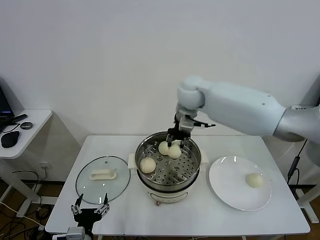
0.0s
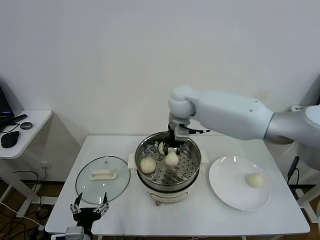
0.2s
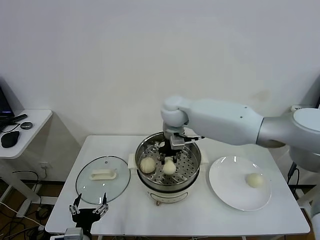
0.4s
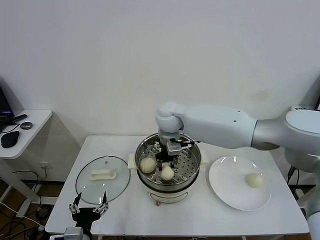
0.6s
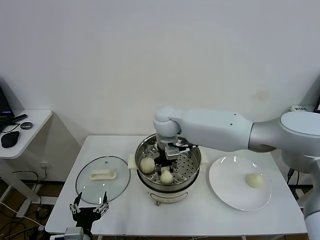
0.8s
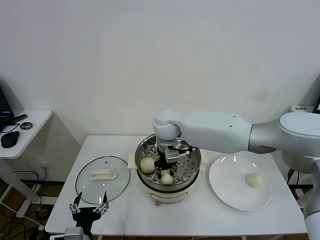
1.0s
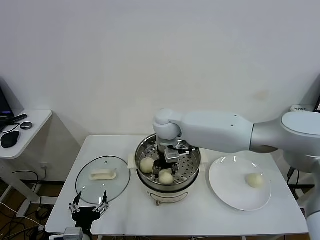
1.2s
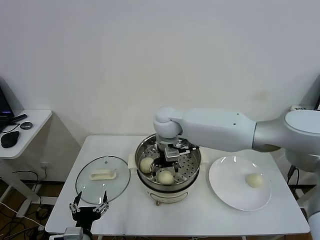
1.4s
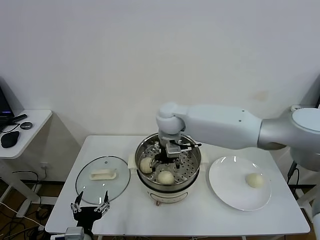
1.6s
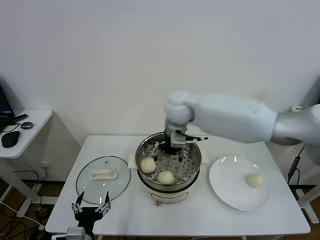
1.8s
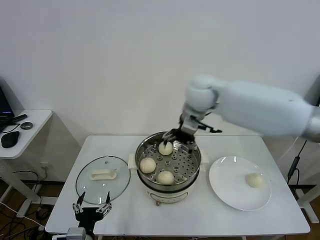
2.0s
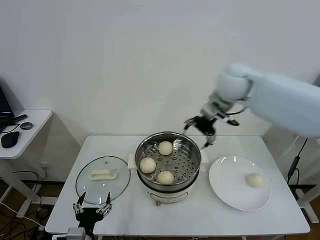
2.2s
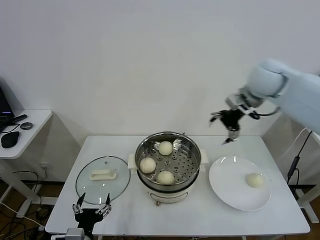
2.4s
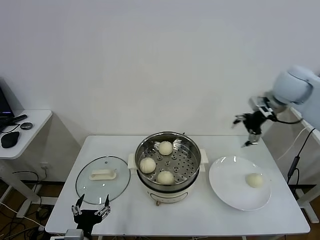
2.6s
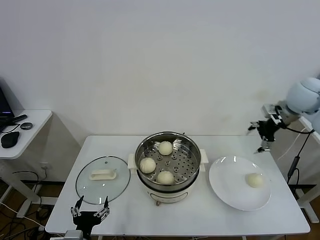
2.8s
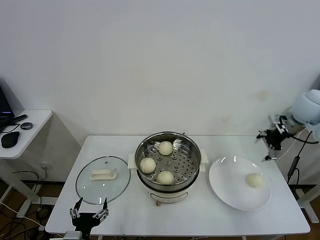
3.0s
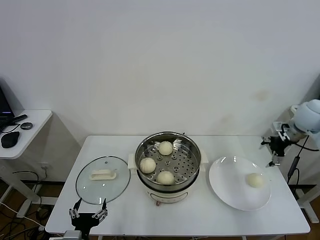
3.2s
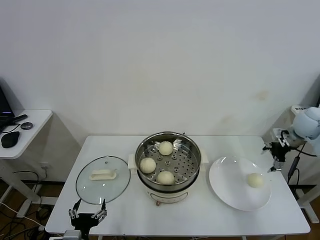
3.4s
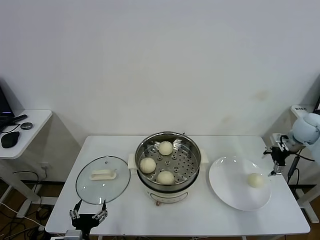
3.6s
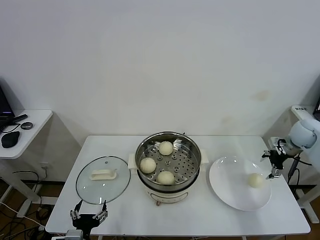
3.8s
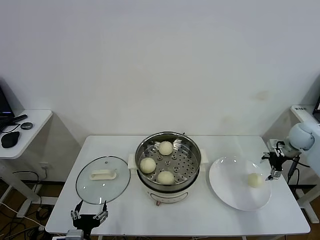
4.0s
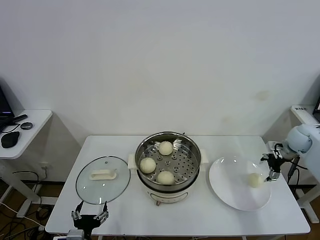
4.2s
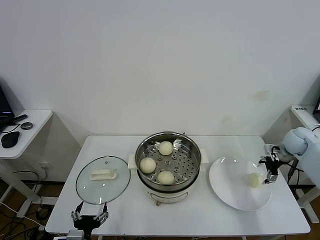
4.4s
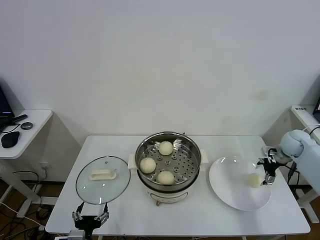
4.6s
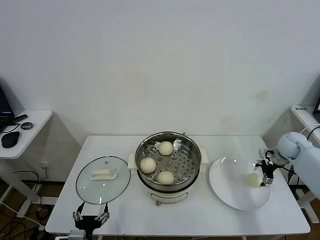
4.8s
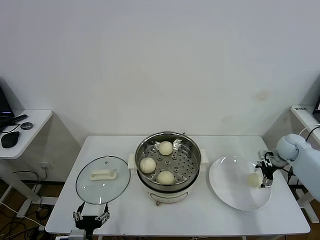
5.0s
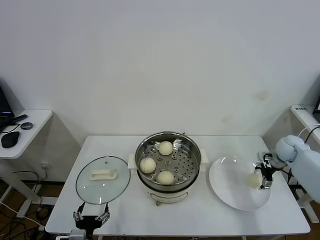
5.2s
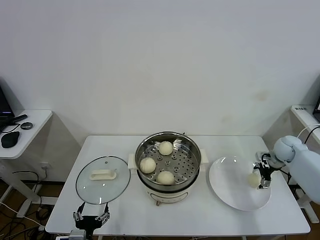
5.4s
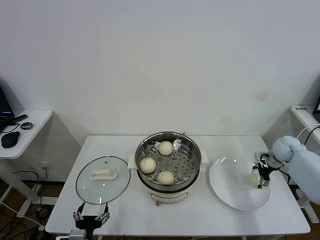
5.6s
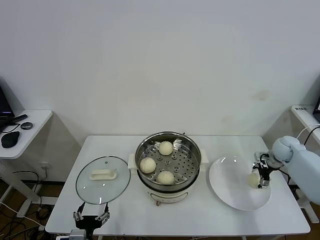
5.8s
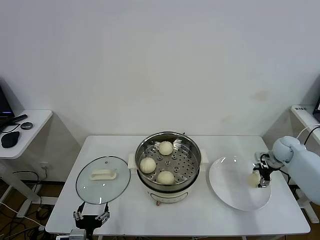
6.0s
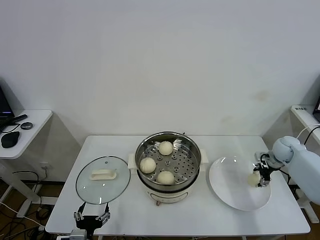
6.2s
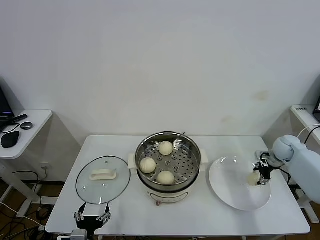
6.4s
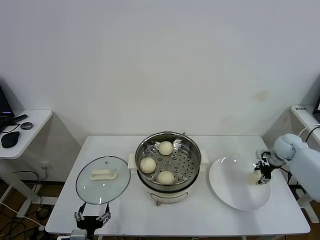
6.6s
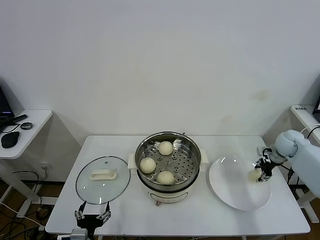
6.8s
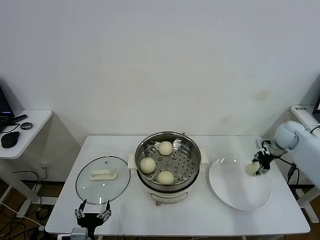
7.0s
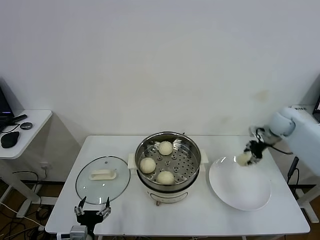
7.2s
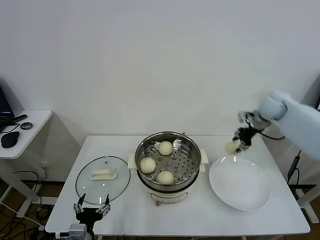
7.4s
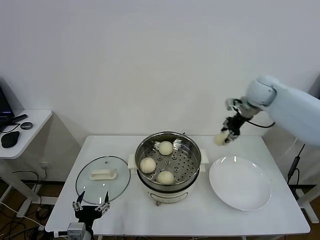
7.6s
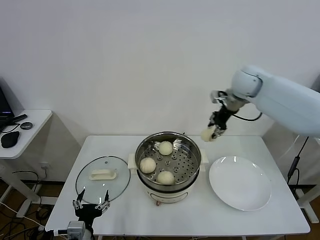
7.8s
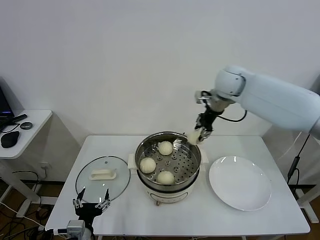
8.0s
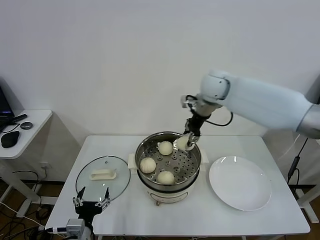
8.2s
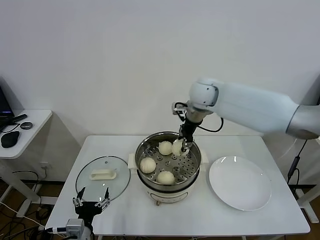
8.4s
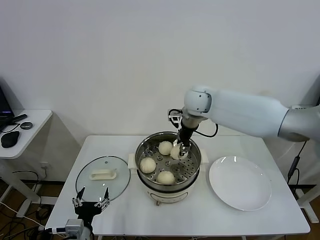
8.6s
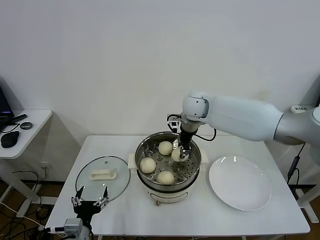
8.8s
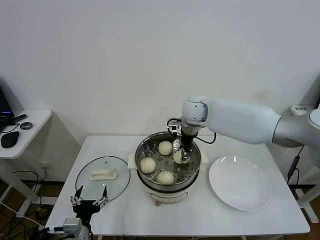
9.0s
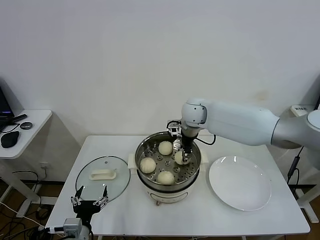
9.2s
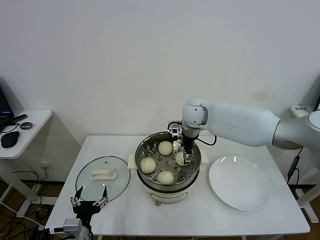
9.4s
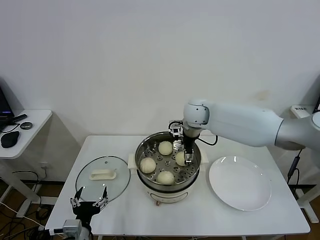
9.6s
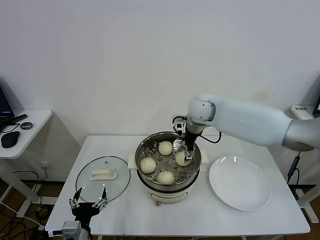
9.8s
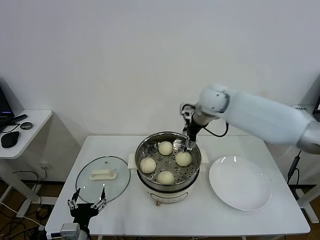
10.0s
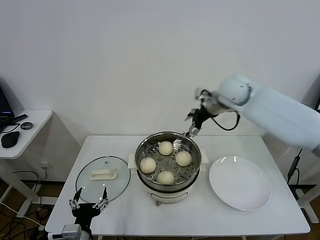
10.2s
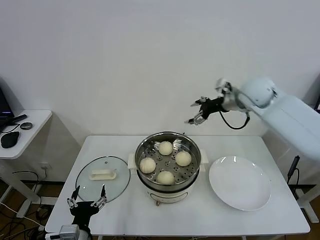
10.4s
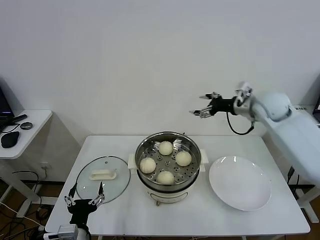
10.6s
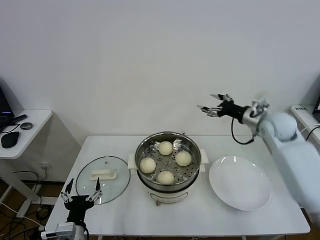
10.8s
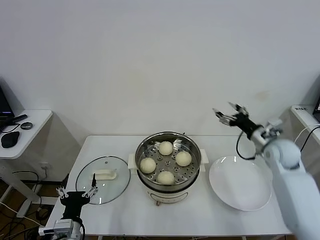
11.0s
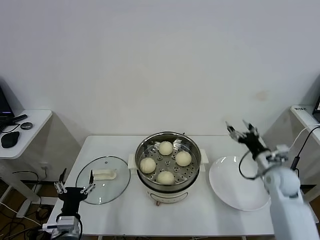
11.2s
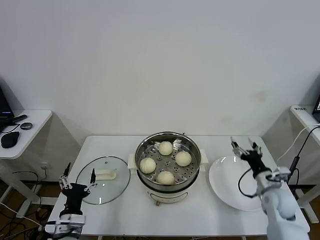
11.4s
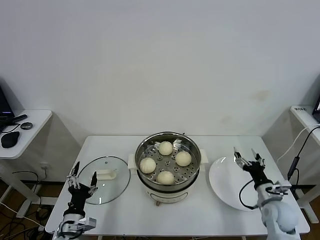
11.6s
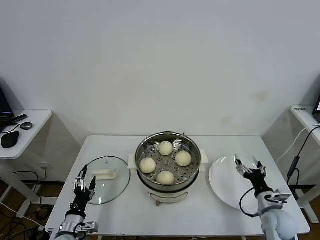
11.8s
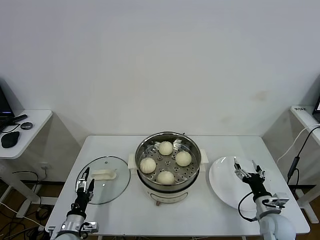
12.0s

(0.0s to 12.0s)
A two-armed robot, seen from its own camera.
Task of the whole recording: take steamed baozi put them in steamer.
Step, 1.8s - 6.4s: Grasp the baozi in the plate with right gripper.
Step, 6.6s - 9.6s: Place the baozi on the steamer with right gripper.
0.0s - 1.6s: The right gripper shifts about 10 cm to the left, downward and backward, and opens its fingers.
1.6s - 3.0s: The right gripper moves to the right, roughly 40 cm.
3.0s - 4.4s: The right gripper is displaced downward by about 15 cm.
4.4s - 6.0s: The right gripper shifts some 5 cm downward.
6.0s - 7.6s: The right gripper goes about 25 cm upward and to the left, and closes its fingers.
7.6s - 9.0s: The right gripper is displaced to the left by some 20 cm.
9.0s - 10.4s: The right gripper heads to the right and upward, covering some 15 cm, and opens up.
10.4s - 12.0s: The left gripper shifts roughly 15 cm downward, to the left and forward, while the right gripper shifts approximately 40 cm downward and backward.

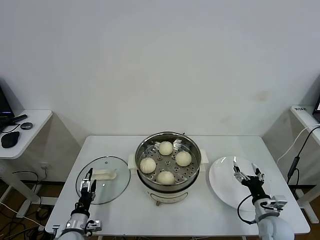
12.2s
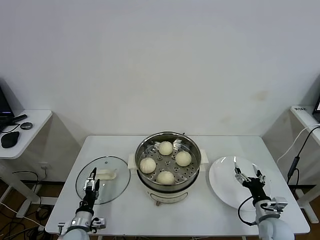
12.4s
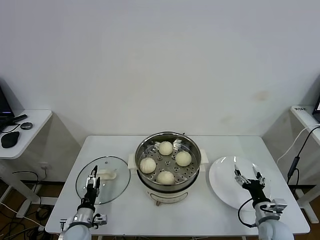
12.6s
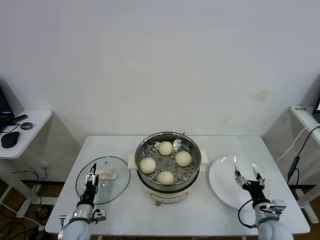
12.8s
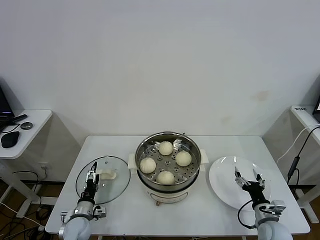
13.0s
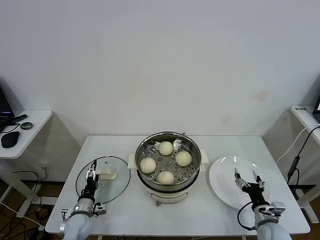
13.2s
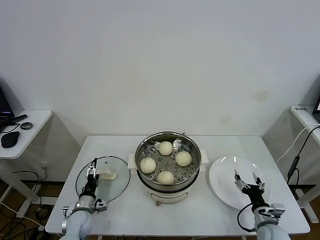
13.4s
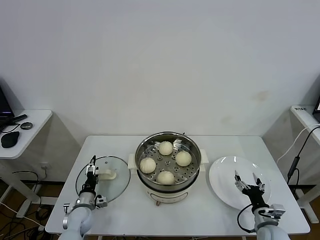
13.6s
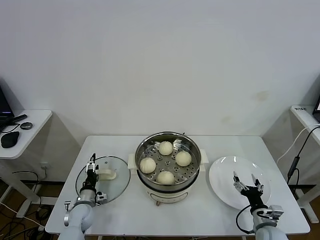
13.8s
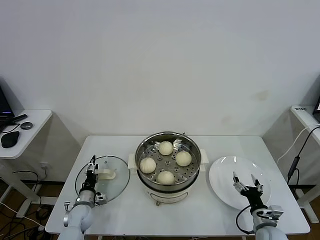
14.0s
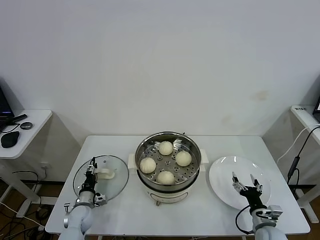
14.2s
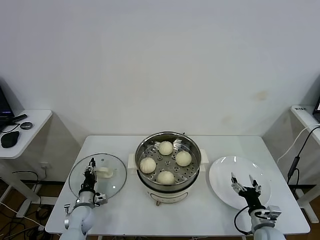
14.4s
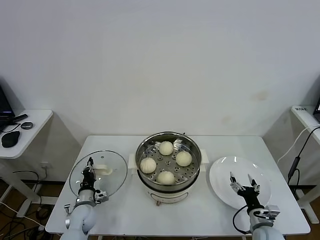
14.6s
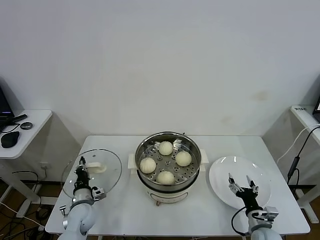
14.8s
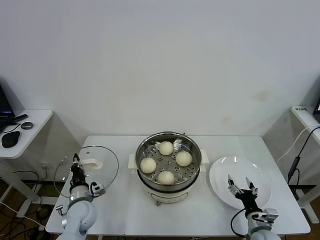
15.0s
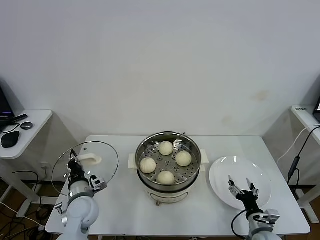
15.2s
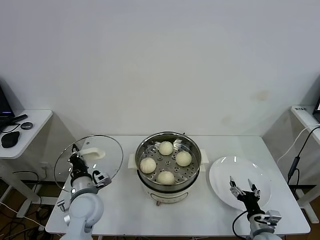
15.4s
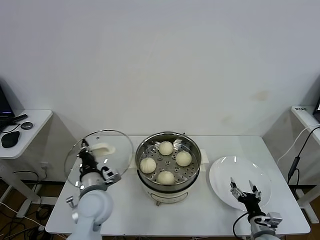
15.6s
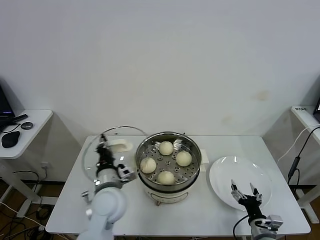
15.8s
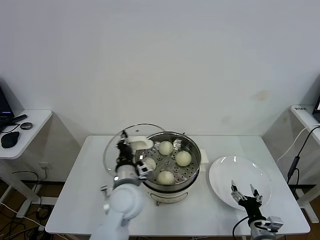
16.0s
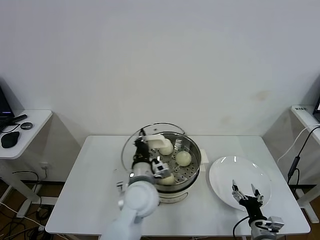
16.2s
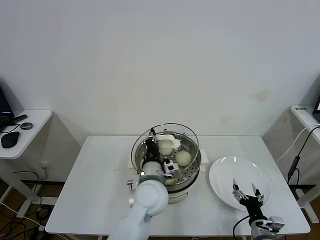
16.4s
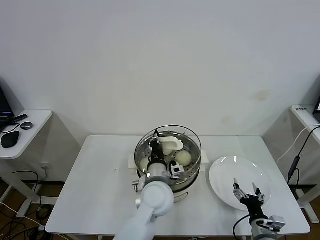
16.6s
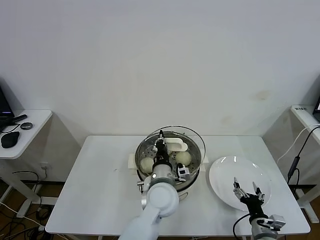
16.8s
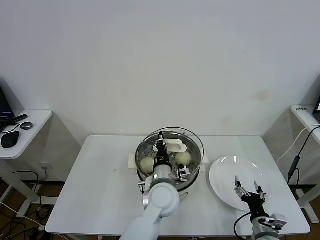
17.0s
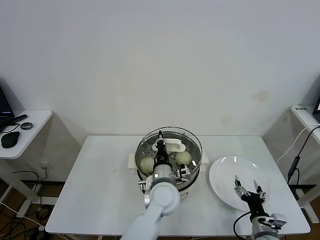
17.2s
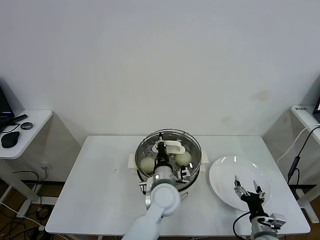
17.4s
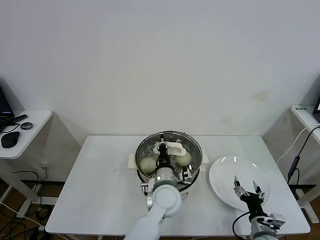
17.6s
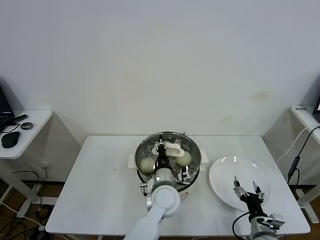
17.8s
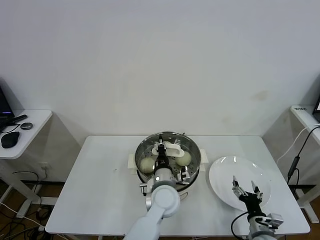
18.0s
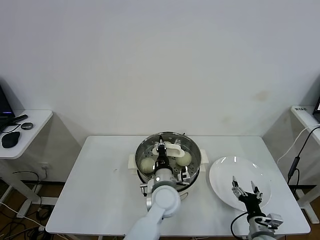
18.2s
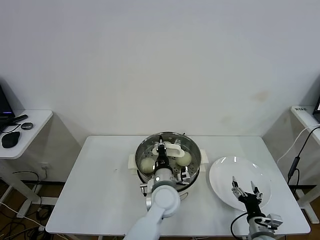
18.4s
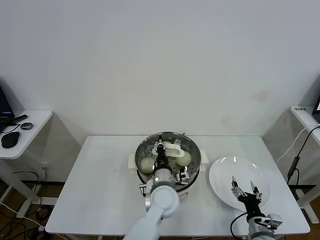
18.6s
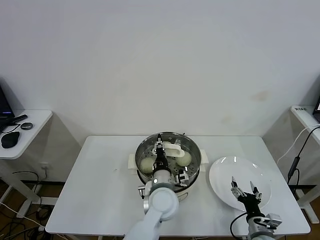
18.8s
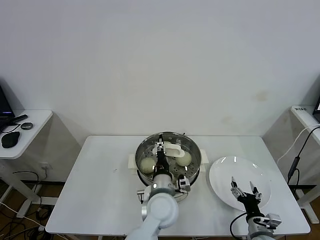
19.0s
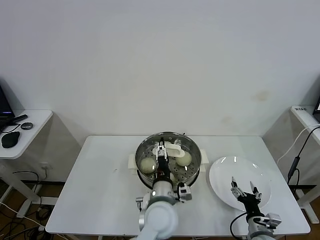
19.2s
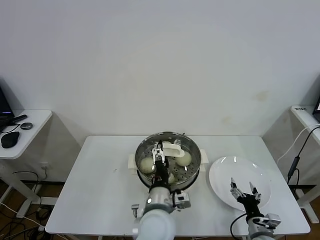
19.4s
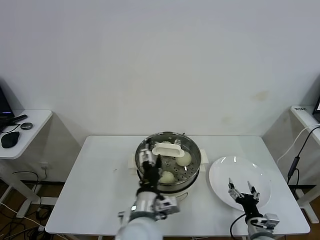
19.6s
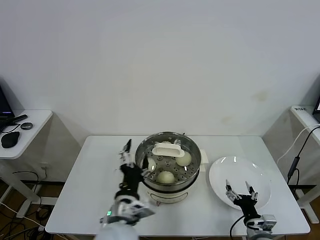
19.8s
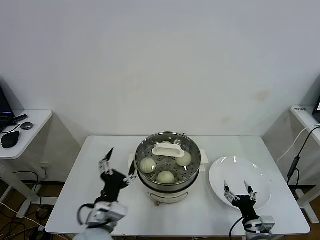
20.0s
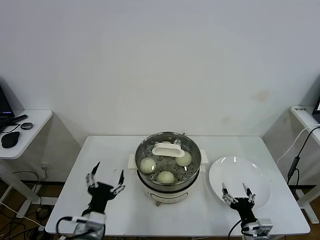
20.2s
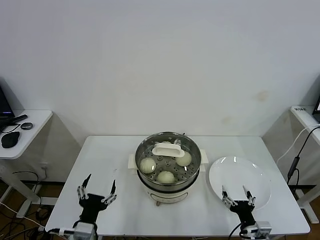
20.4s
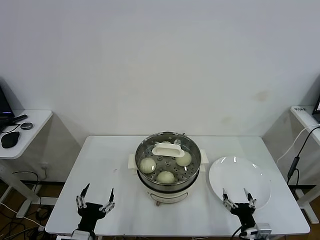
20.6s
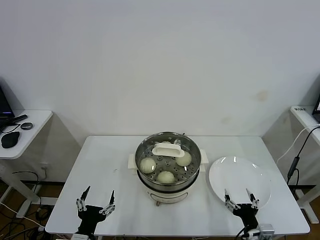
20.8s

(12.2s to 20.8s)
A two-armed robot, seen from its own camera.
Task of the whole recording: take steamed baozi put them in steamer.
Step, 12.2s - 14.8s: Grasp the pot lid with left gripper.
Step, 15.0s - 19.4s: Place the pot lid on the steamer with left gripper.
12.2s - 13.6s: The left gripper travels forward by about 10 cm.
13.6s - 15.0s: The left gripper shifts approximately 5 cm upward, and closes.
15.0s - 16.6s: The left gripper goes some 30 cm to the right and upward.
16.6s - 18.0s: The left gripper moves downward, about 5 cm.
18.0s - 19.4s: The left gripper heads backward, covering approximately 10 cm, and opens its fingers.
19.4s - 20.8s: The right gripper shifts by some 5 cm; the left gripper shifts roughly 25 cm to the left and backward.
